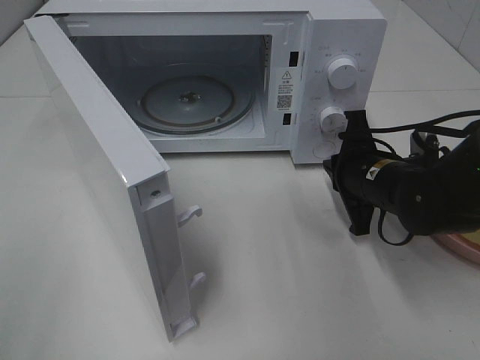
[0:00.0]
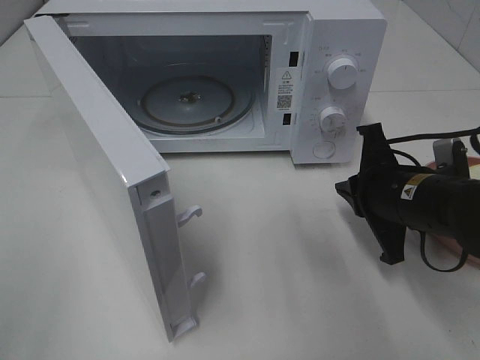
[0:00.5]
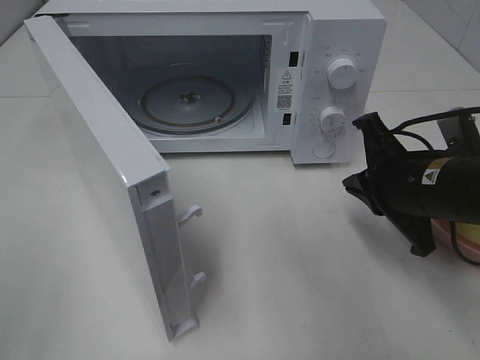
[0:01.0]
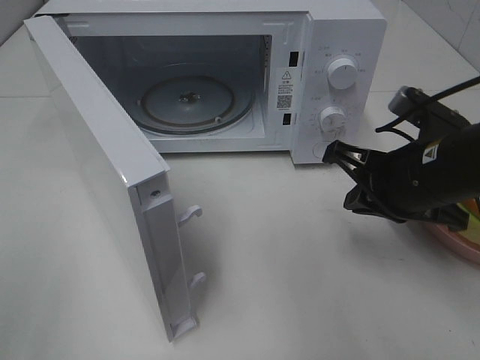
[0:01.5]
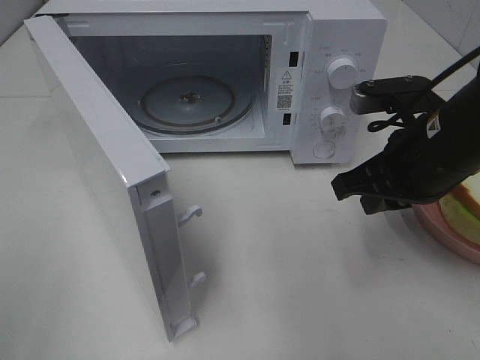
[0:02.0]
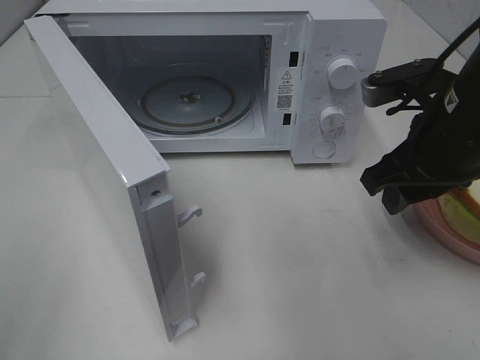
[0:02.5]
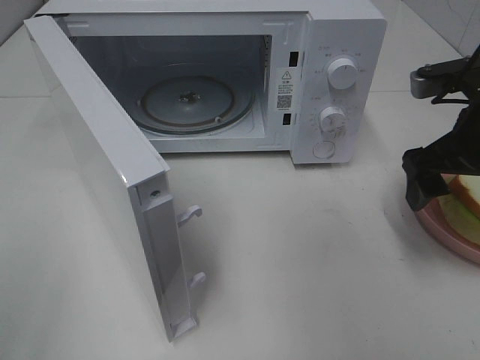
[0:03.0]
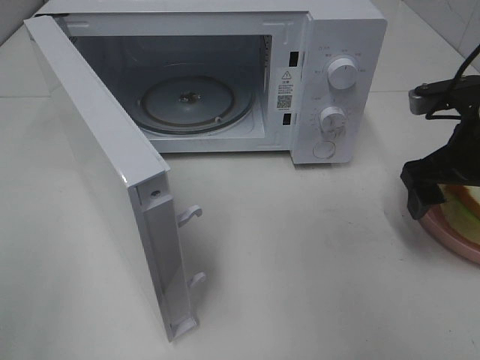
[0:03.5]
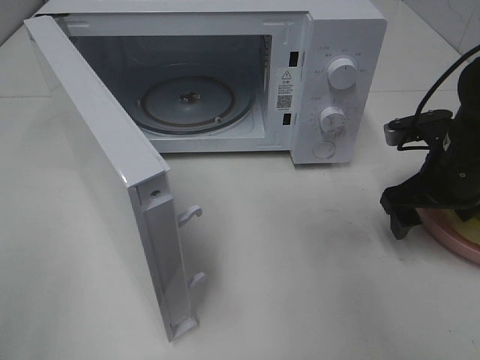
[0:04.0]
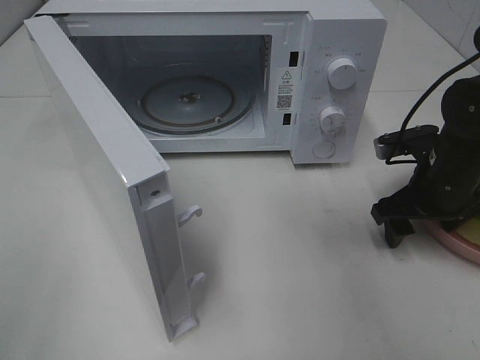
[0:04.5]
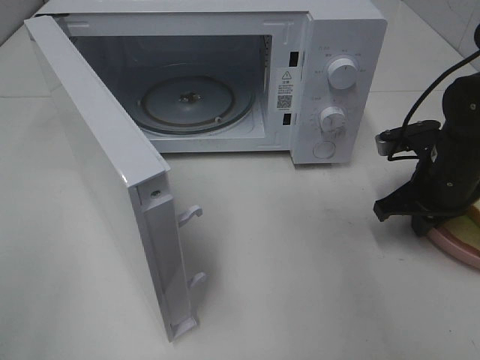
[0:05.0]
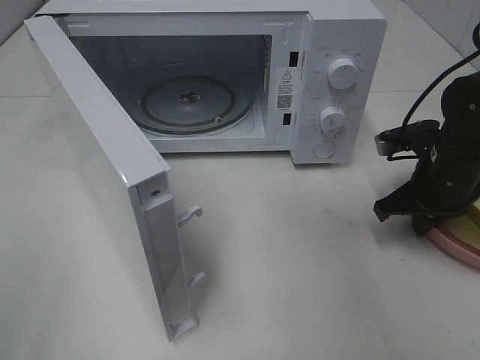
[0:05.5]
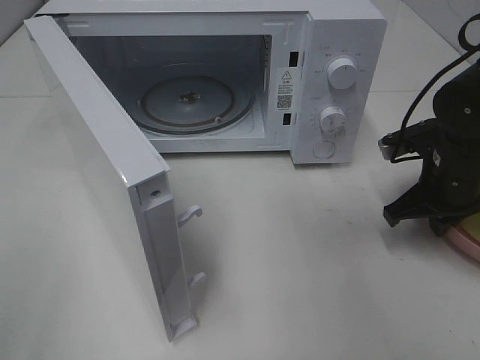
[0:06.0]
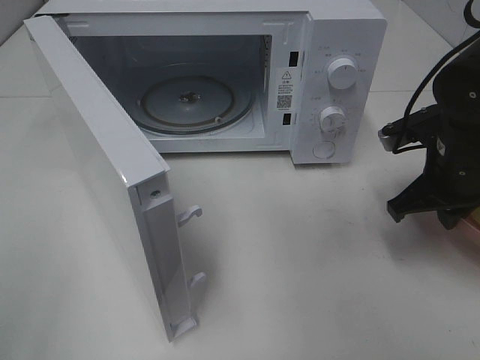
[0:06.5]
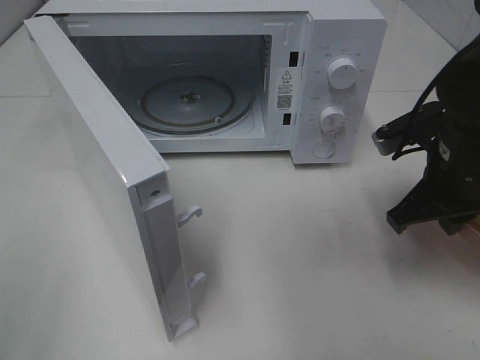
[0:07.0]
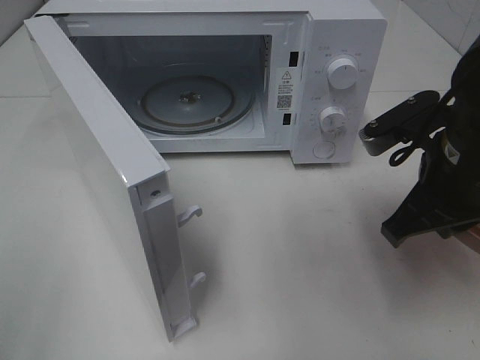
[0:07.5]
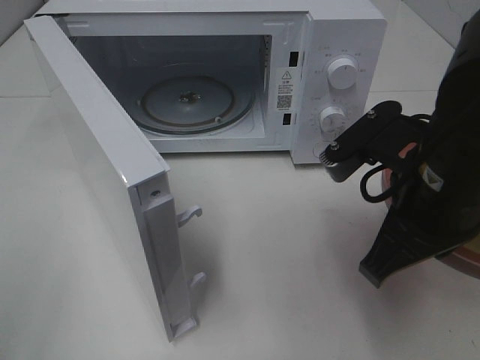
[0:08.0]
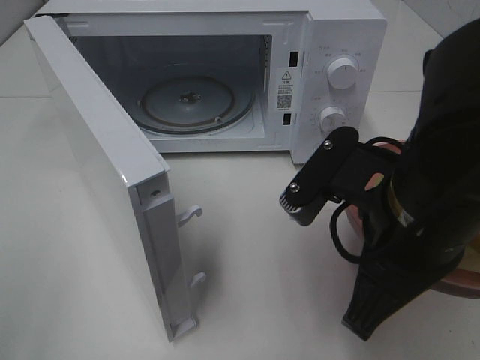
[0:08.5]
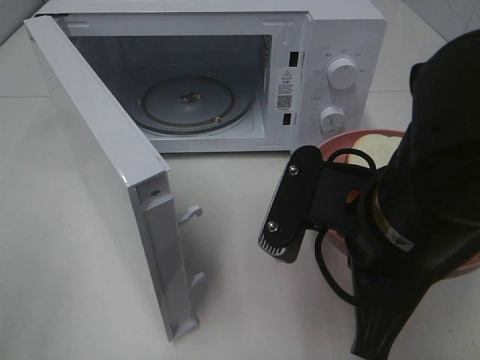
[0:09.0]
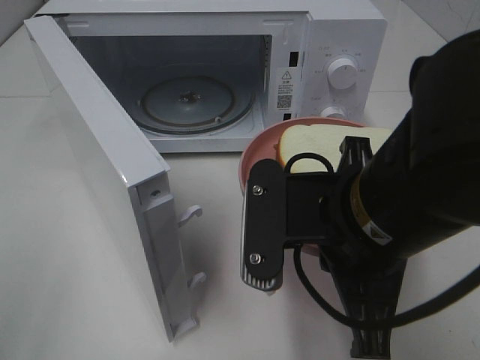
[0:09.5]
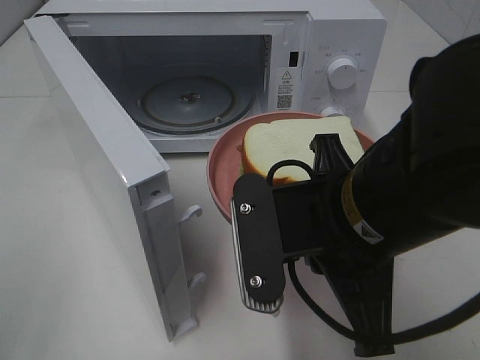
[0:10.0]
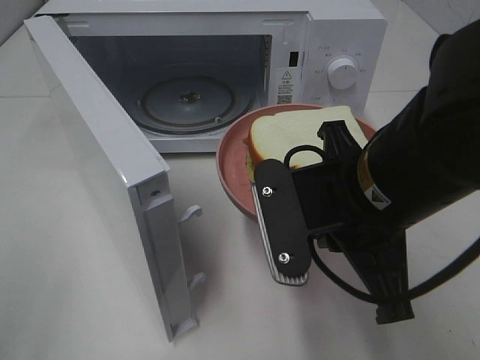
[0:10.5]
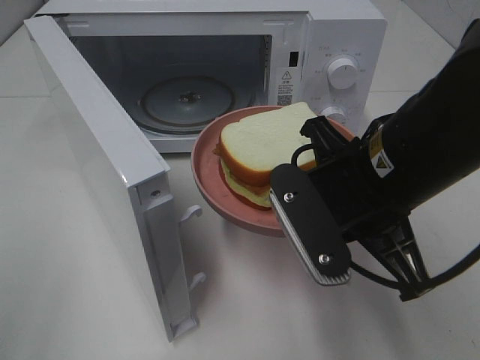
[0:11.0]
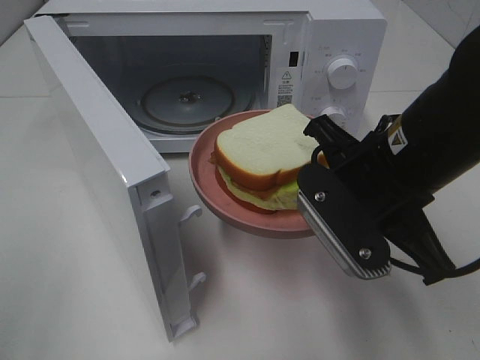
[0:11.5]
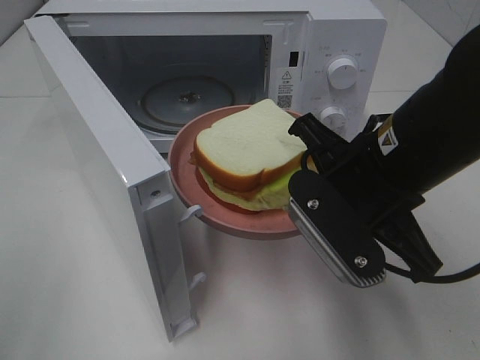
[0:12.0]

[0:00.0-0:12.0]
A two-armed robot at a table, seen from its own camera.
Task of the whole recording: Heat Sandwich.
Step, 0:00.0 to 0:05.5: Right hand: grab the plate with the sandwich.
0:00.0 to 0:02.0: The right gripper shifts about 10 cm upward and backward.
0:02.0 to 0:04.0: The right gripper goes roughly 10 cm to the right, downward and forward, and opens its fingers.
0:04.0 to 0:06.0: The right gripper closes.
0:06.0 to 0:08.0: The right gripper shifts about 20 cm backward, to the left and upward.
0:08.0 to 0:10.0: The right gripper shifts about 5 cm to the left.
0:10.0 to 0:12.0: The right gripper shifts approximately 5 cm forward.

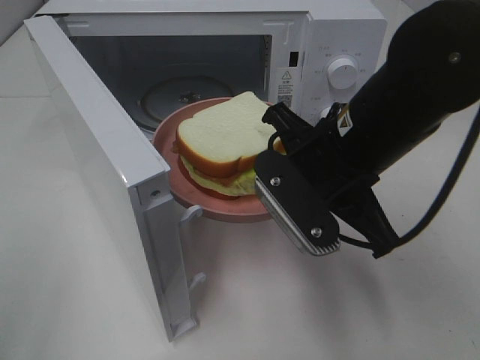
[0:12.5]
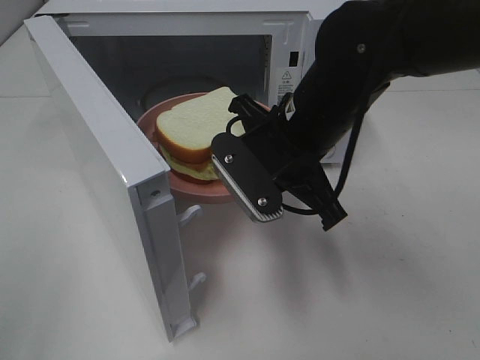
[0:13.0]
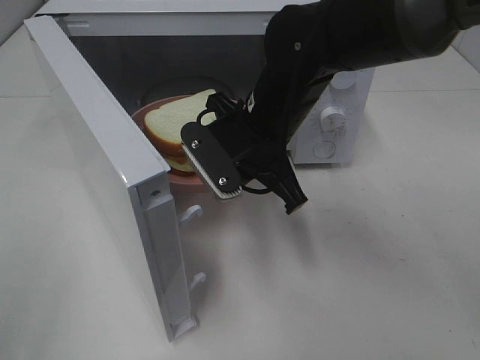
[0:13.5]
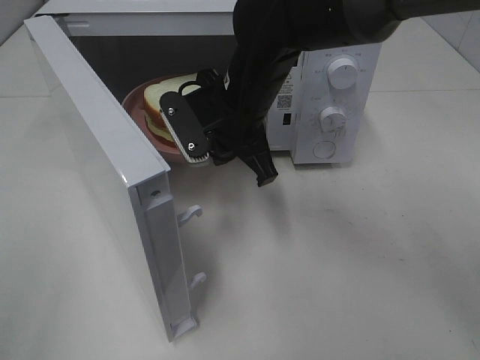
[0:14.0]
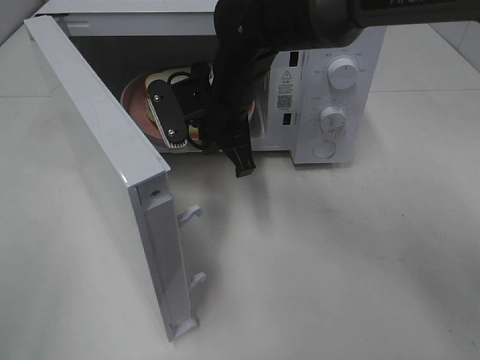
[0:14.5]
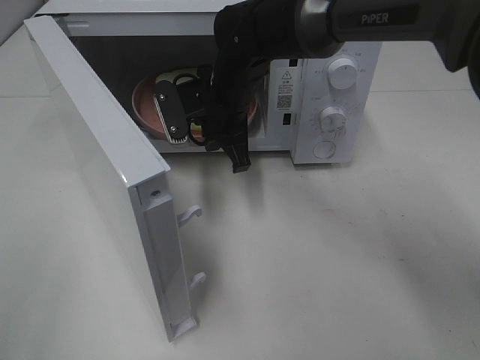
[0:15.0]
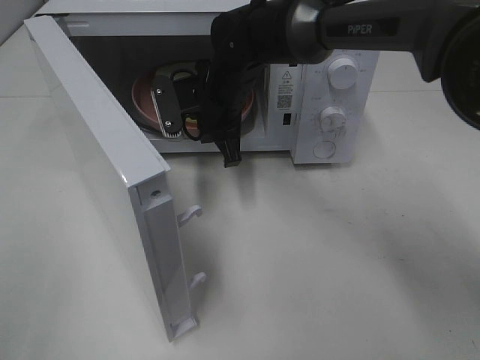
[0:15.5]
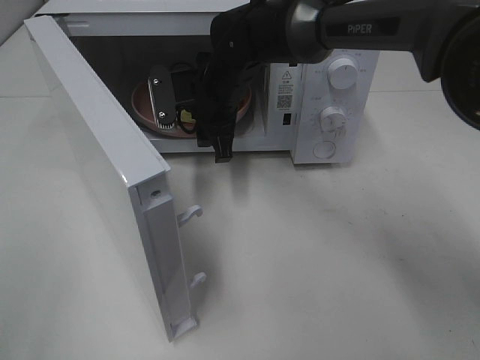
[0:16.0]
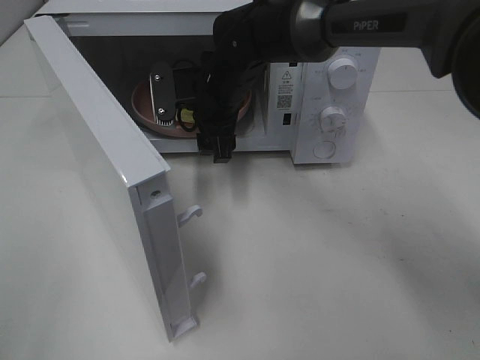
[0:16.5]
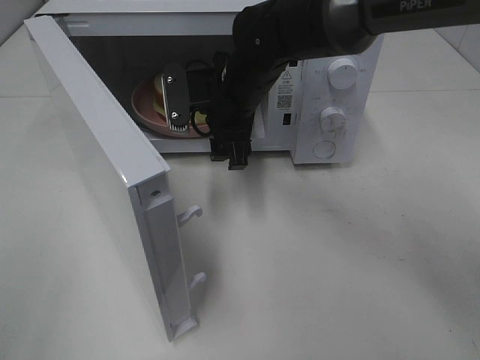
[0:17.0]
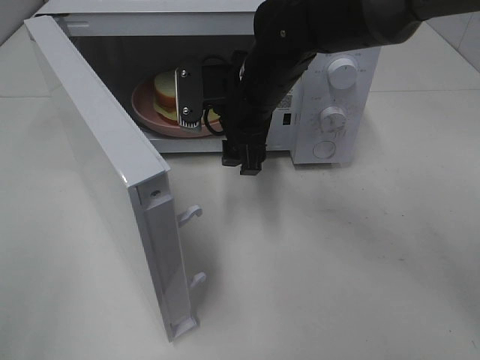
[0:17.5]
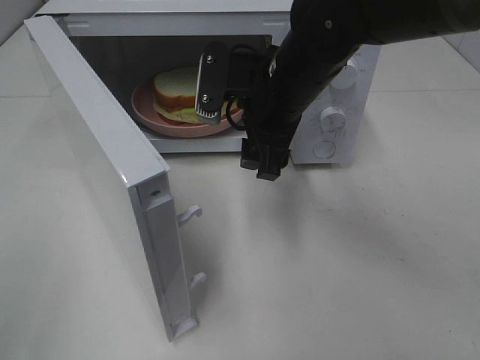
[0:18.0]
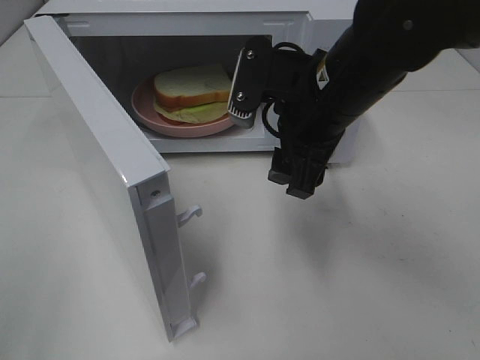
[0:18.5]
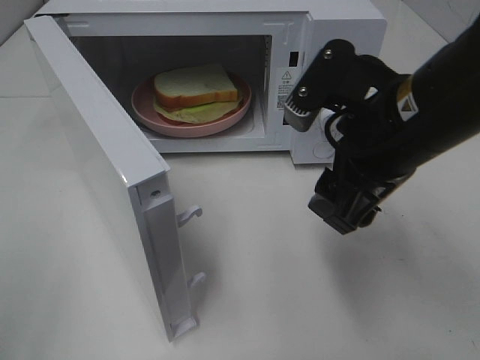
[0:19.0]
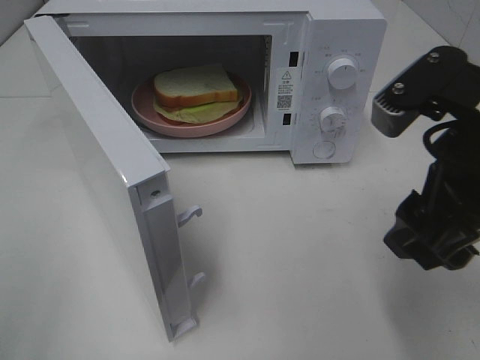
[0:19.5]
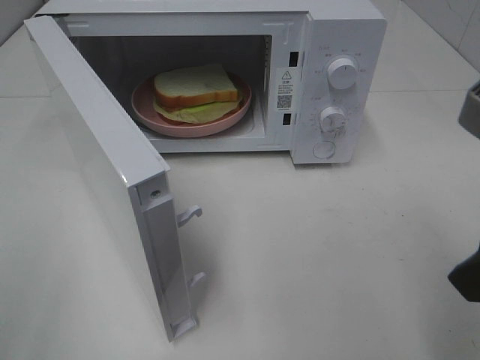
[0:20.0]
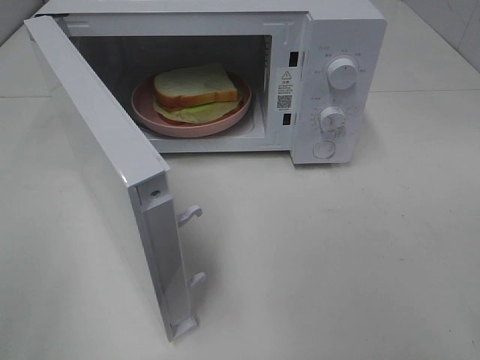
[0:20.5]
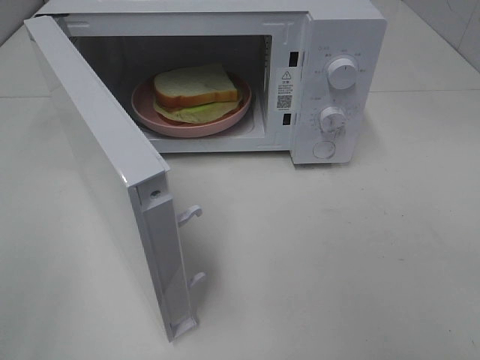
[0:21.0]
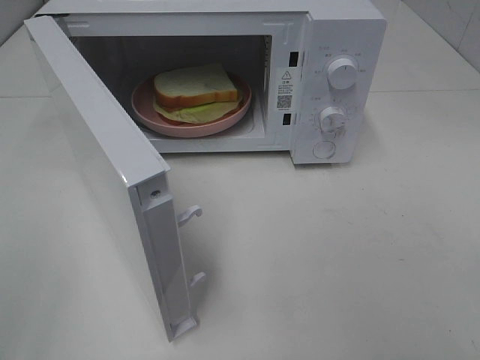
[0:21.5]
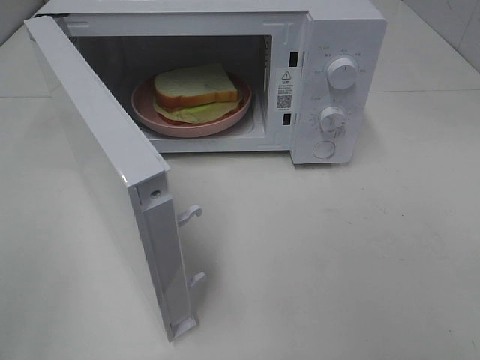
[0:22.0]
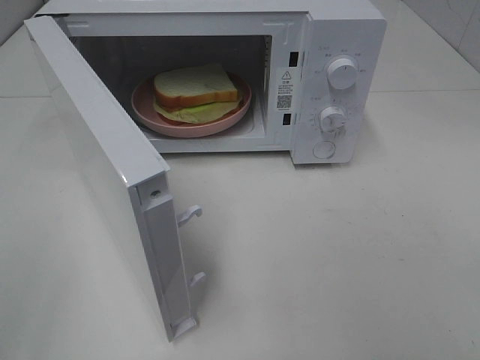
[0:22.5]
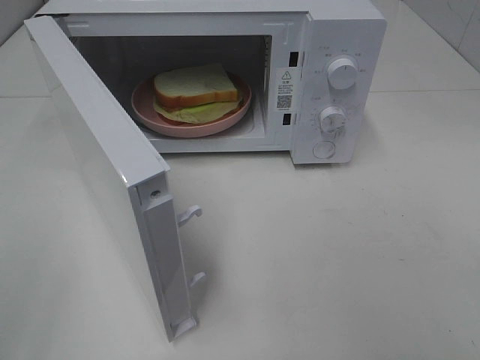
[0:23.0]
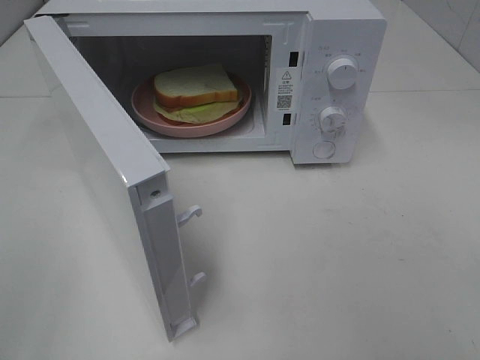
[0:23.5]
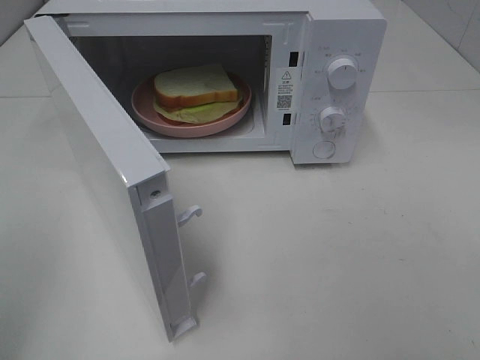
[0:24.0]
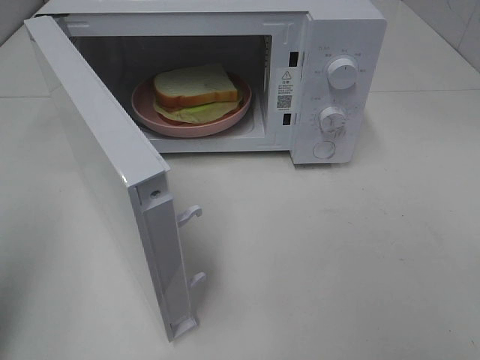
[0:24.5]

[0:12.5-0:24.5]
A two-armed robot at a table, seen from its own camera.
Task of the whole recording: Heat Sandwich.
Step, 0:12.5 to 0:16.0: Right hand: place the plate in the microwave.
0:12.5 to 0:14.5: The right gripper goes some 15 cm forward and to the left.
0:14.5 to 0:16.5: The right gripper opens its fingers.
0:16.5 to 0:18.5: The right gripper is displaced backward, to the right and upward by about 20 cm.
0:18.5 to 0:20.5: The right gripper shifts some 25 cm backward, to the right and upward.
0:22.5 to 0:24.5: The left gripper is displaced forward by approximately 10 cm, and closes its fingers.

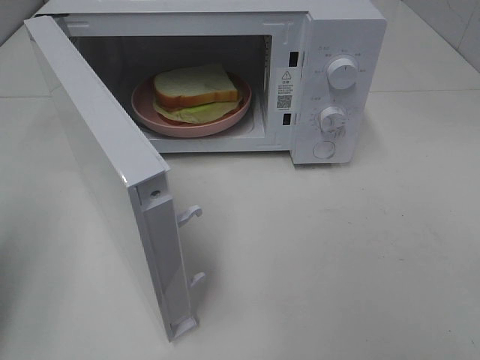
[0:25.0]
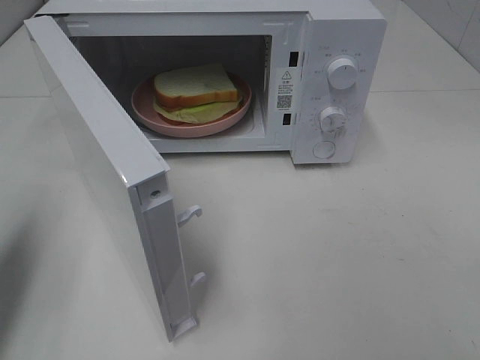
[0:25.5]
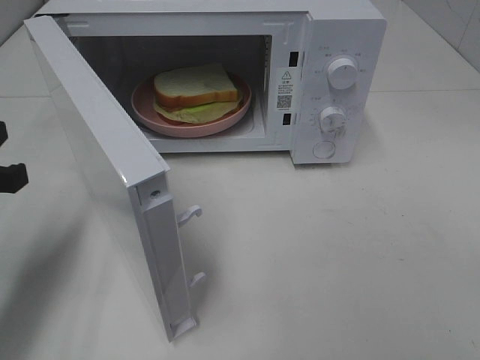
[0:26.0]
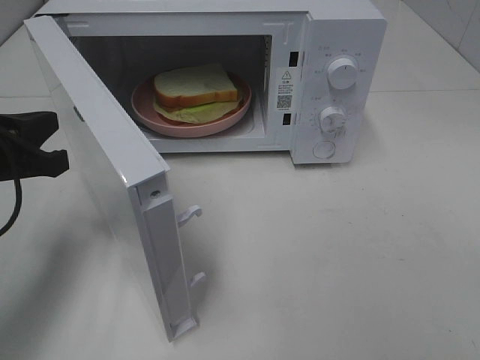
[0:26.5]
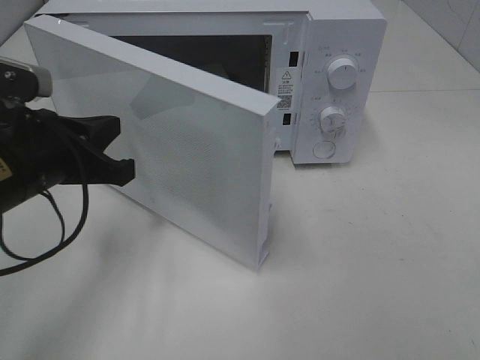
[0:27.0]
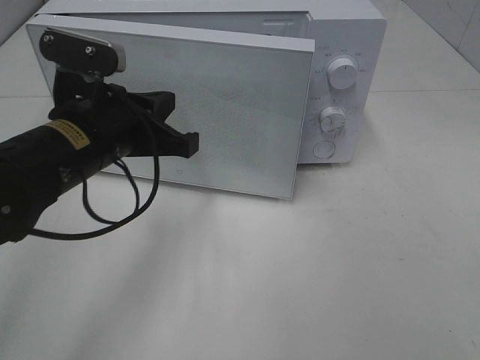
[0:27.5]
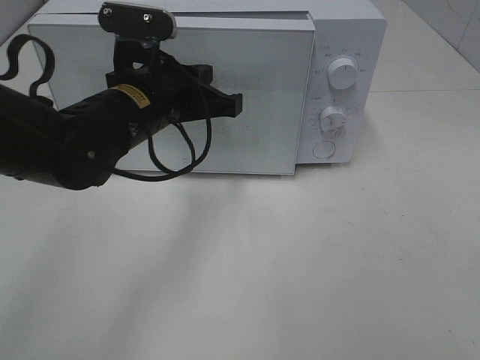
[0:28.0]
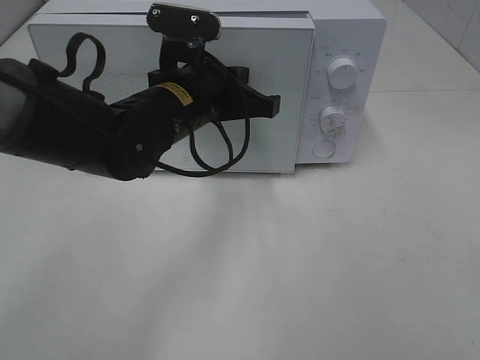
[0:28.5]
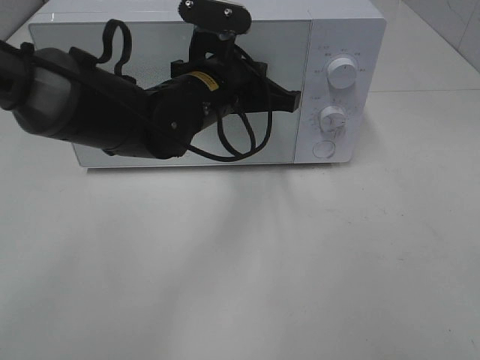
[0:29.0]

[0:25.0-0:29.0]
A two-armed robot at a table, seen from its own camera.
Task of the whole recording: Heat Sandwich.
0:25.0 to 0:27.0: The left gripper travels to the right, forward and downward by approximately 20 cm.
0:27.0 to 0:29.0: The left gripper shifts some 20 cm to the right and forward.
